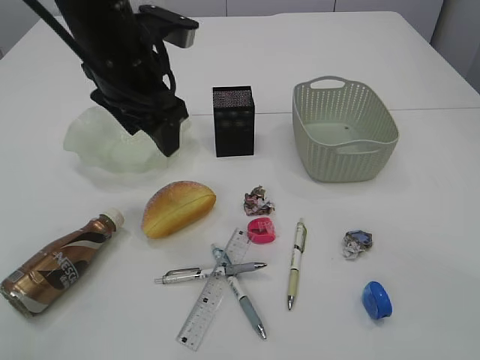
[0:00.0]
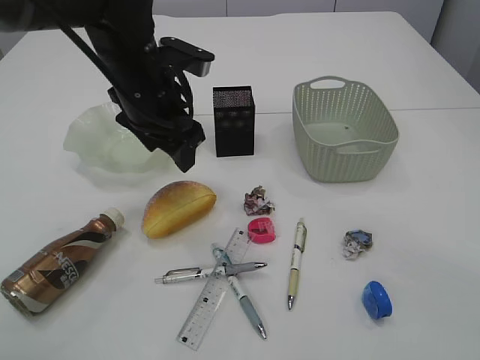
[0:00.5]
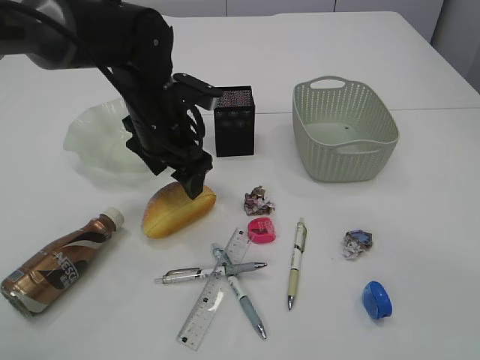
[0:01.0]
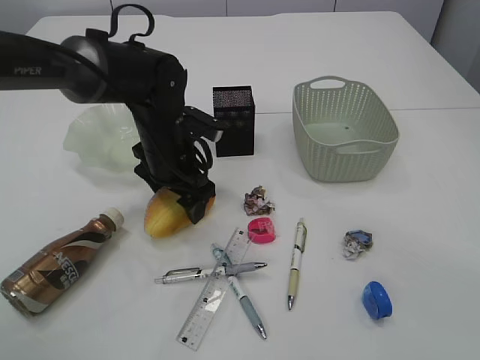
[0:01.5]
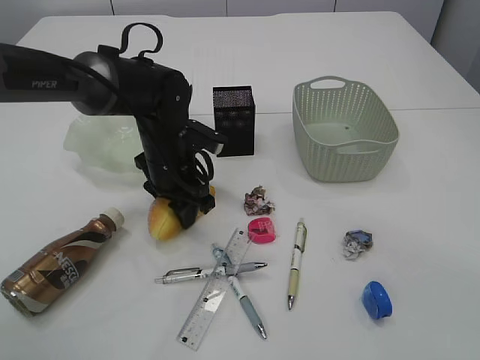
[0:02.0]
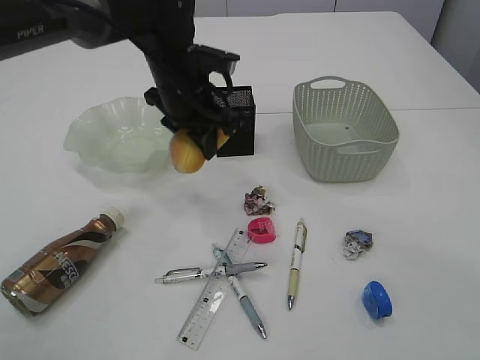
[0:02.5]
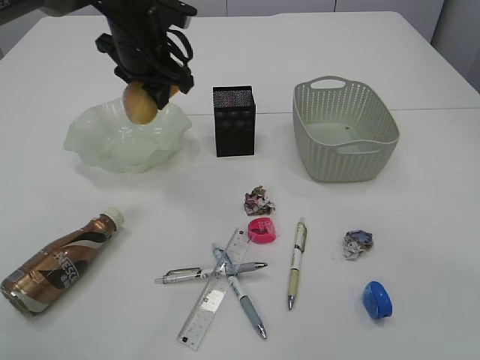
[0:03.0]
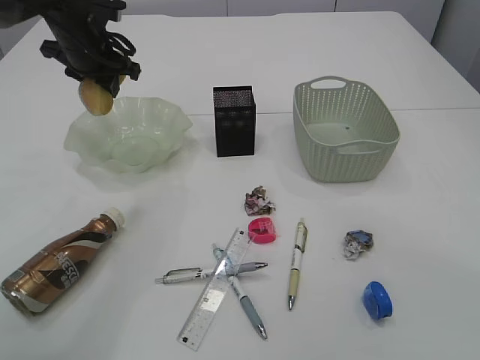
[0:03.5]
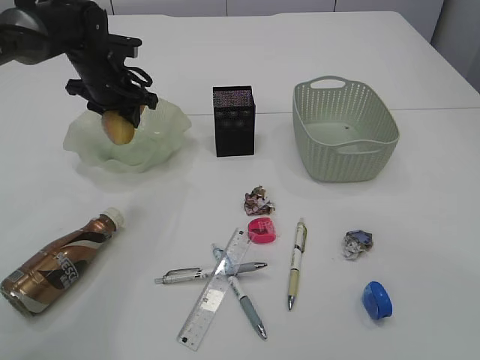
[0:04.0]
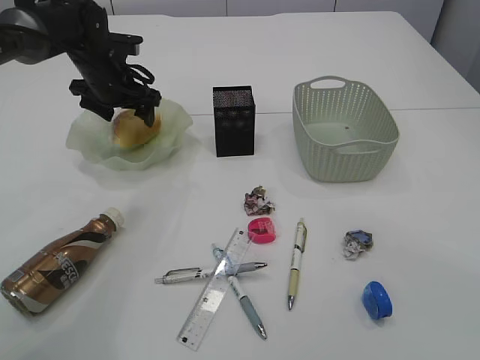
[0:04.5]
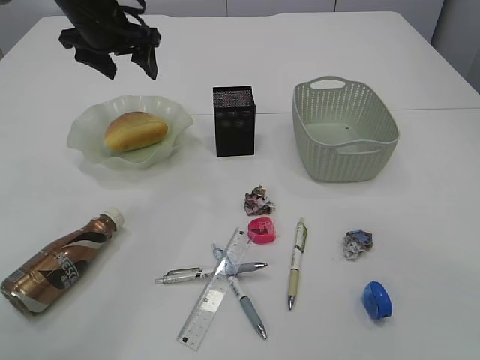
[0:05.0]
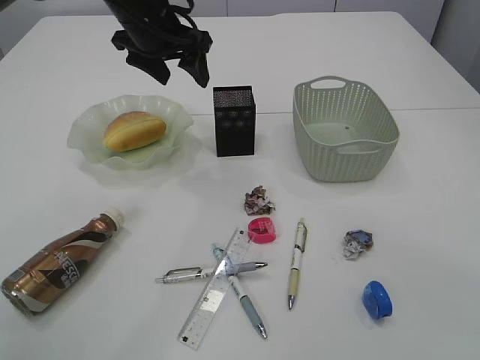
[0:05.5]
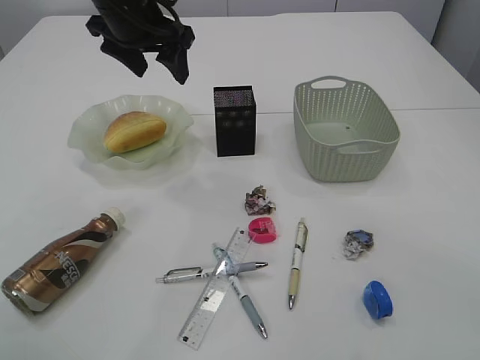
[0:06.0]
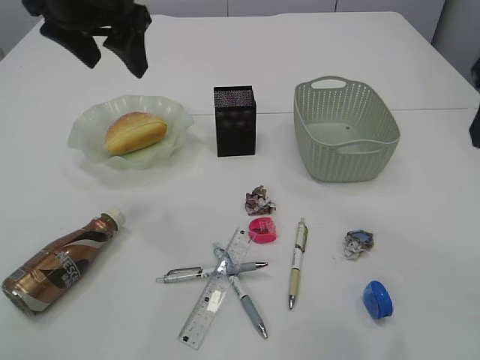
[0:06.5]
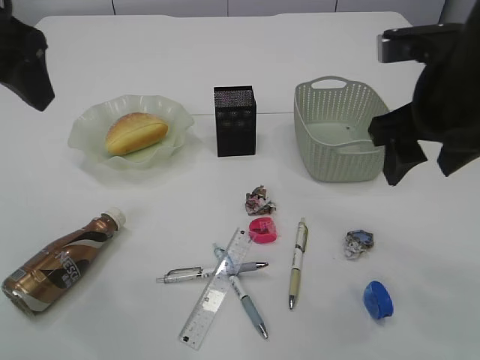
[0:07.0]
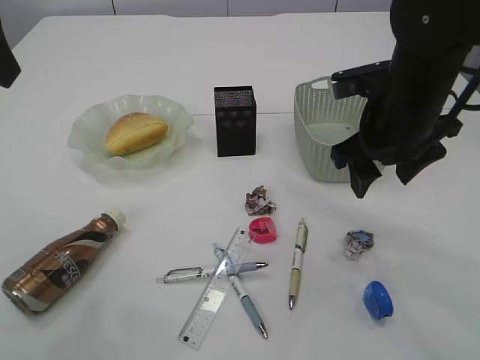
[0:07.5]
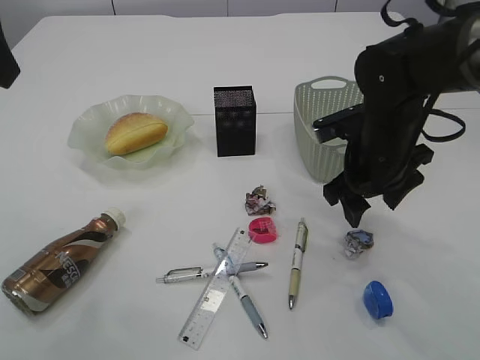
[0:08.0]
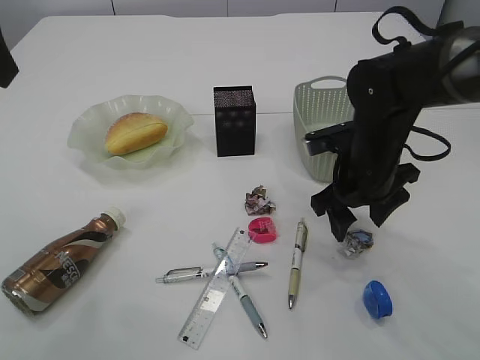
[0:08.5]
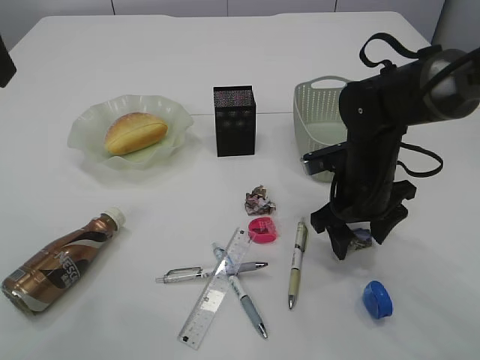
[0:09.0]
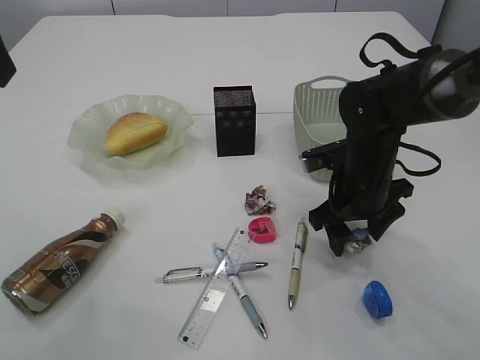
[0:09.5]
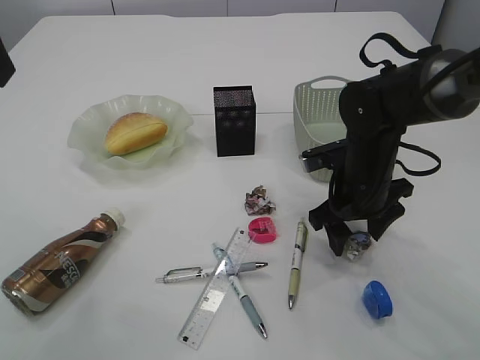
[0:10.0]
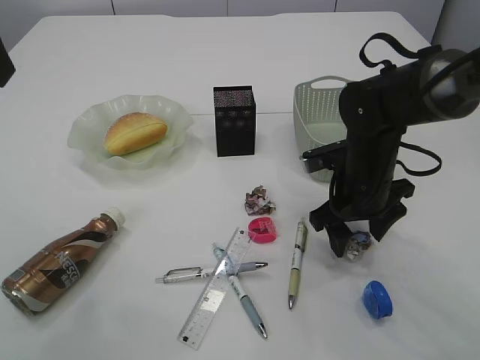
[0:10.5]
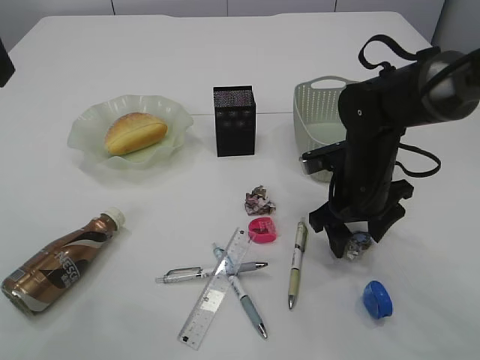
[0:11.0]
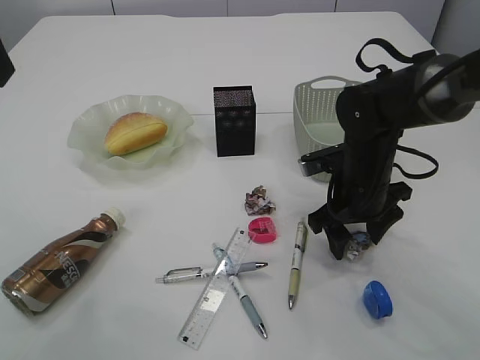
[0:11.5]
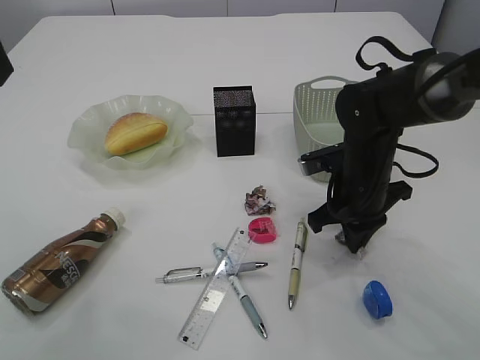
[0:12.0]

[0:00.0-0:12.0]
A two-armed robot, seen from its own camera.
Step, 0:03.0 to 0:04.5: place the bread in the plate.
0:00.0 to 0:02.0: The left gripper is displaced downward by some 15 cm, and closes.
0:02.0 to 0:04.0: The left gripper heads forward, to the left and upward, covering approximately 20 cm.
0:04.0 to 0:06.0: The left gripper goes roughly 15 cm upward, to the right and backward, and opens up.
0:06.0 to 0:08.0: The left gripper is displaced backward, upward and to the left by roughly 25 cm; the right gripper moves downward, forward and to the left, some 30 cm.
0:08.0 to 0:10.0: The right gripper ends up roughly 5 cm from where it was.
0:10.0 to 0:12.0: The right gripper closes its fingers.

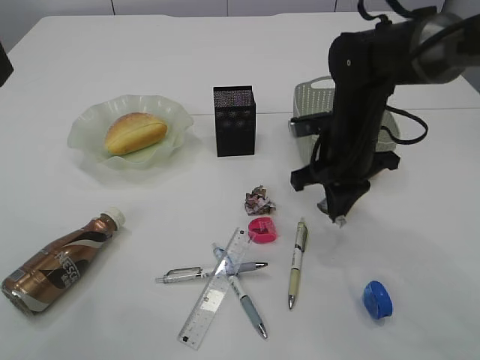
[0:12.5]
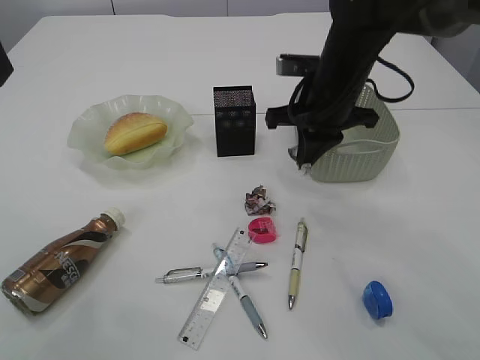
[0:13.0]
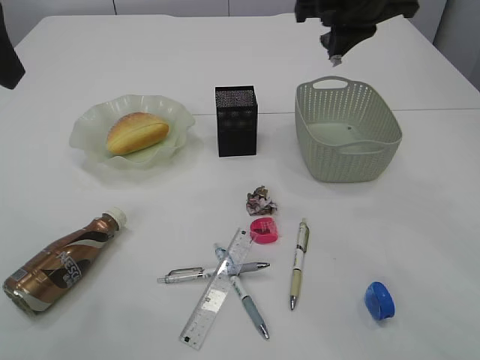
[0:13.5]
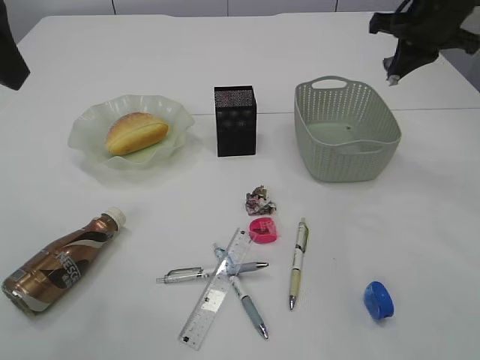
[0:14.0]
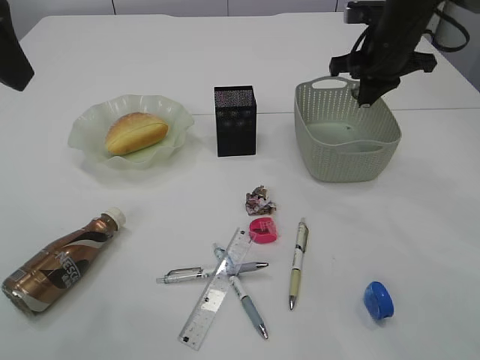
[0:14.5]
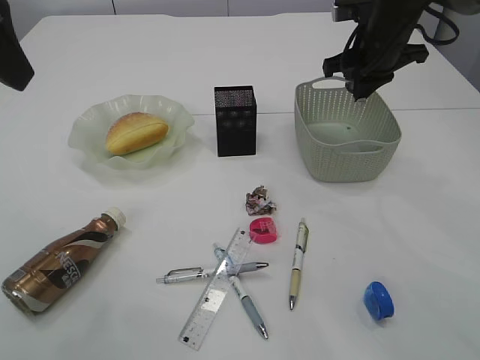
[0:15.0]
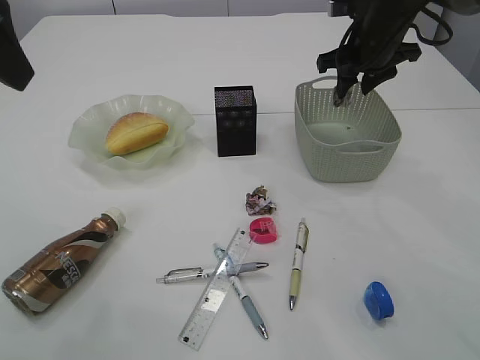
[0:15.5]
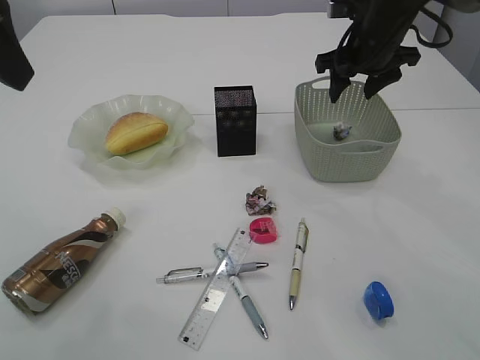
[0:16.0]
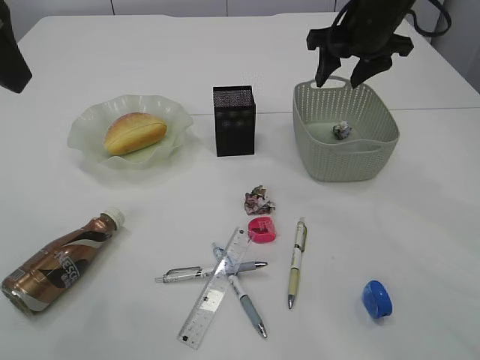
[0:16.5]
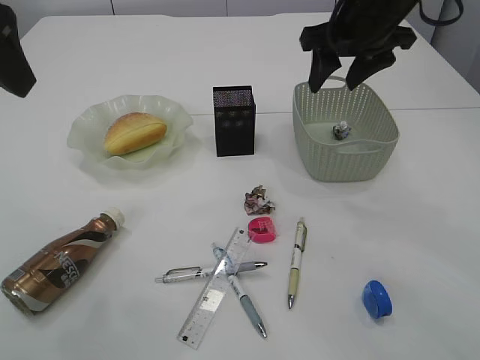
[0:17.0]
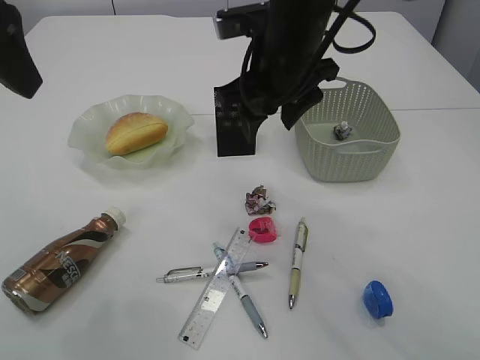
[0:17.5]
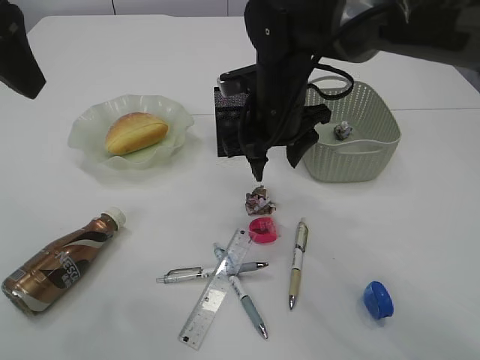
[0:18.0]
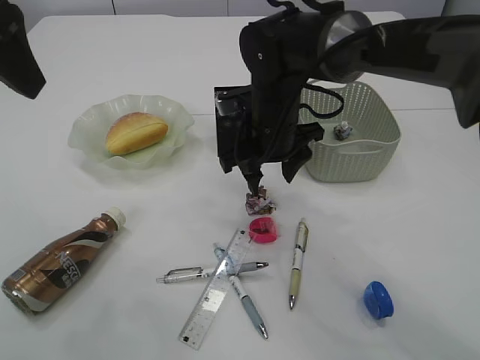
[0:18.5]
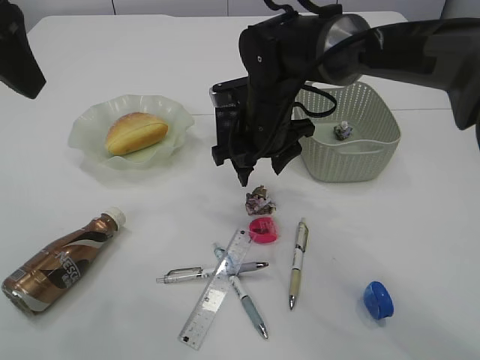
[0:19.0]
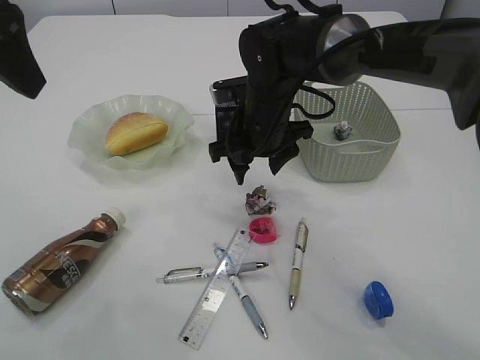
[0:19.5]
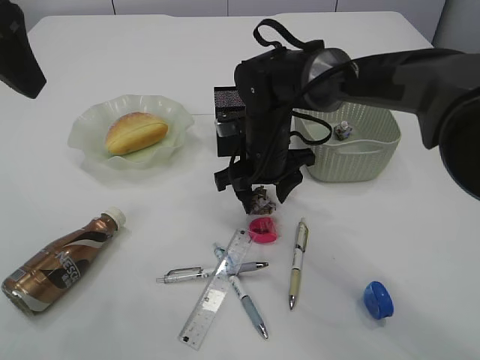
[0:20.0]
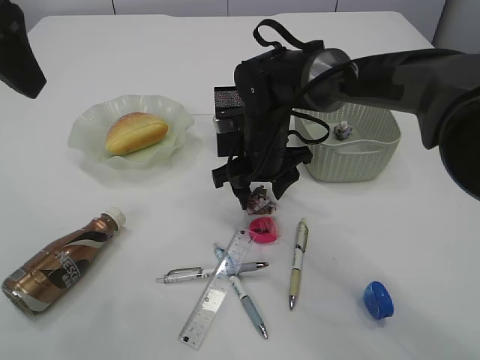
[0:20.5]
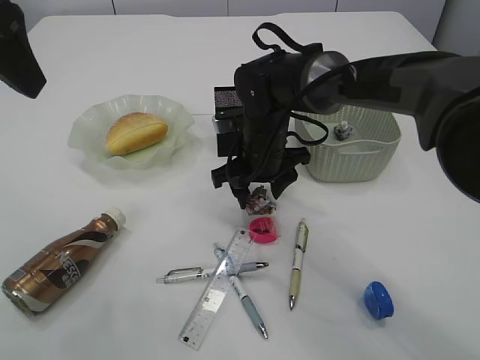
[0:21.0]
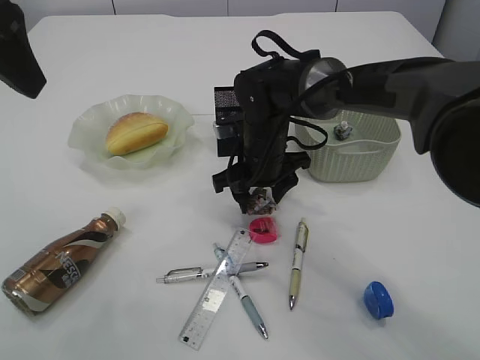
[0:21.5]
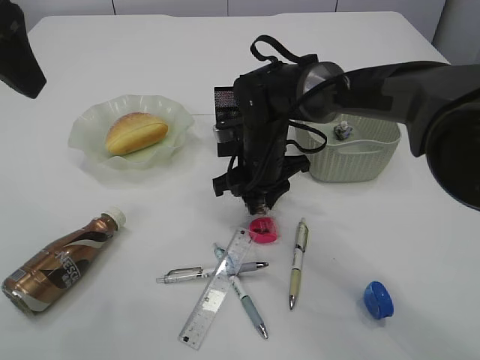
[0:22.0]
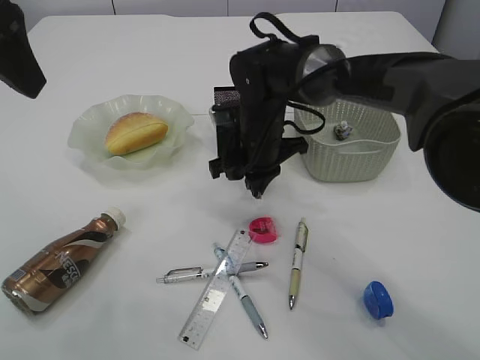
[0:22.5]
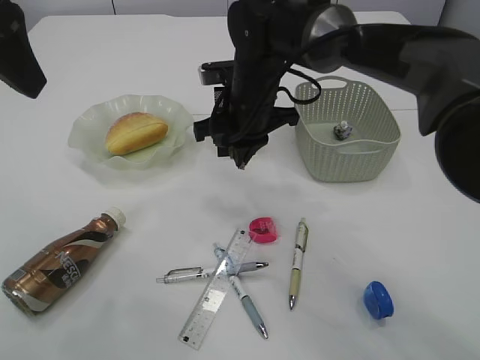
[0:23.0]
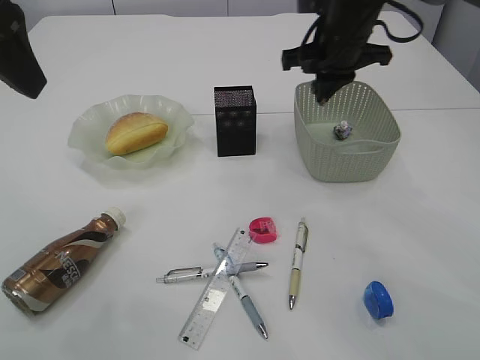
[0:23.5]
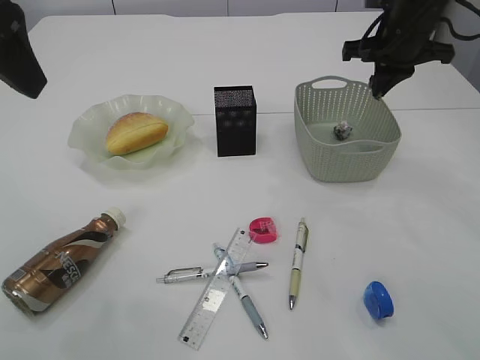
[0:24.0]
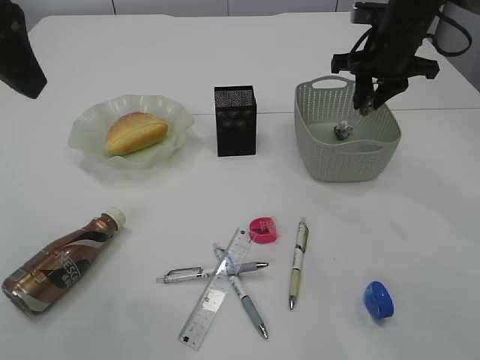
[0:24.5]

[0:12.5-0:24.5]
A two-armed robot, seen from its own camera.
Step, 0:13.0 to 0:16.0: Place the waste paper in the basket.
Step, 0:16.5 to 0:22.5: Pick up the waste paper.
0:12.5 to 0:14.5: The right gripper shifts approximately 15 cm forward, upward and to the right.
0:14.5 to 0:16.5: The right gripper opens its fingers.
0:16.5 to 0:18.5: The right gripper heads to the left, downward and backward, covering some 20 cm.
0:18.5 to 0:20.5: The grippers move only a little.
0:20.5 to 0:22.5: The right gripper closes its fingers.
0:22.5 to 0:24.5: The right gripper goes about 20 cm to the right and upward, and opens up.

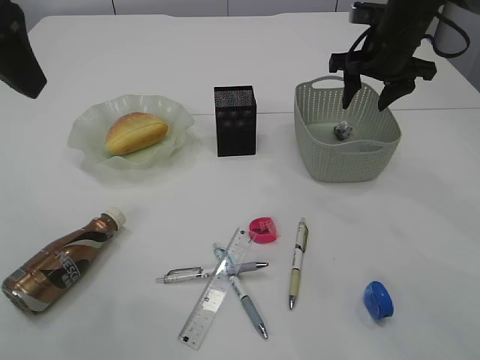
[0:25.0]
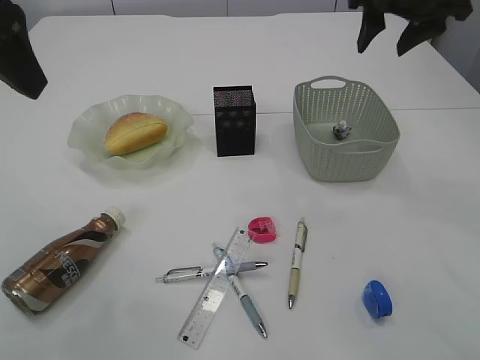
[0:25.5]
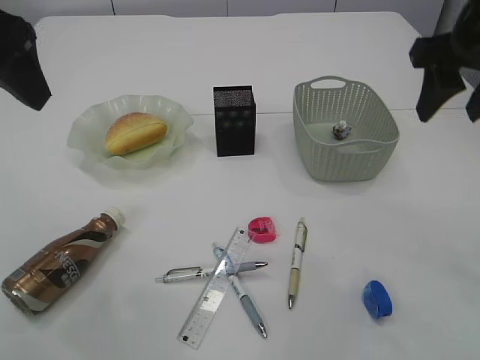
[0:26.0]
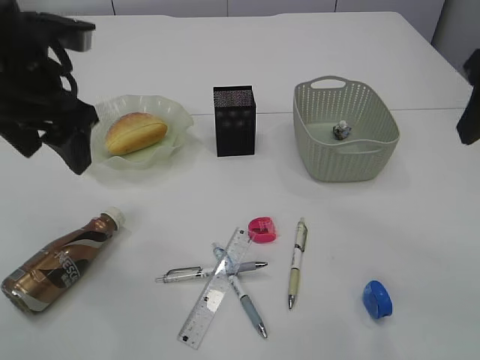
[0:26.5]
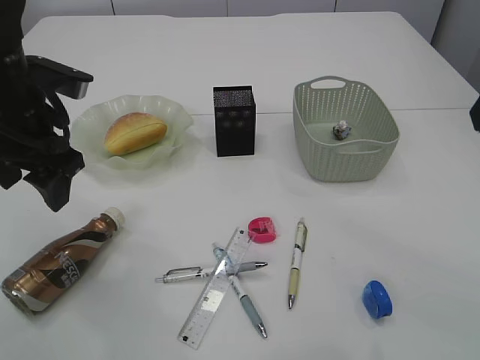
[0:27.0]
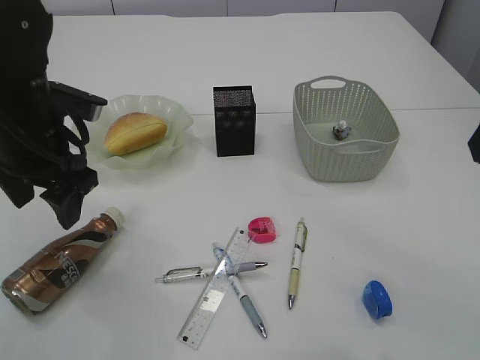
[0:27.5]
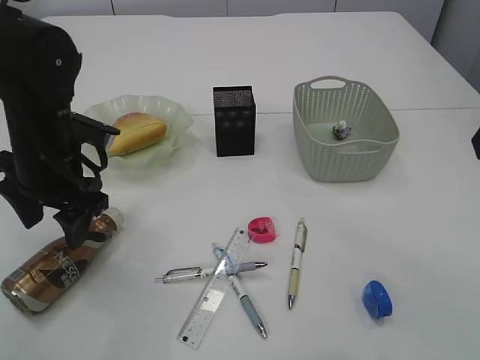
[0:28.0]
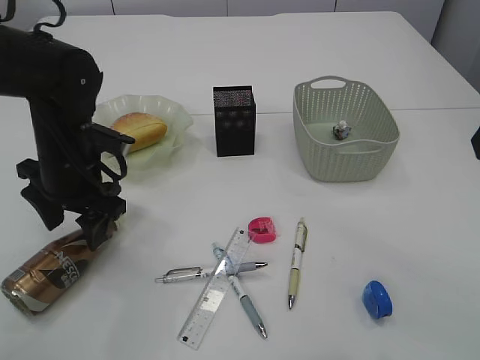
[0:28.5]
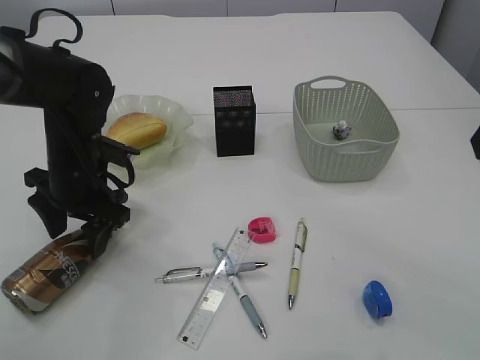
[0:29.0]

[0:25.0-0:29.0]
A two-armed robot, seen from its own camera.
0:25.0 to 0:27.0: The right gripper shifts approximately 30 cm backward and upward, while the left gripper heads downward and forward, covering approximately 15 cm.
0:27.0 to 0:29.0: The left gripper is displaced downward by roughly 10 cm.
